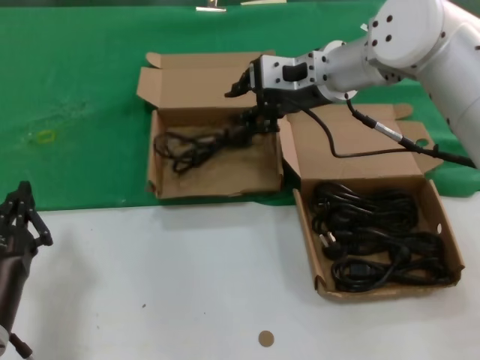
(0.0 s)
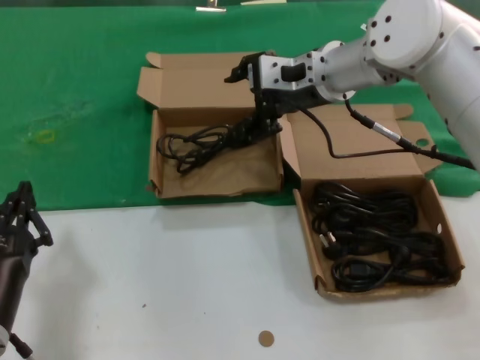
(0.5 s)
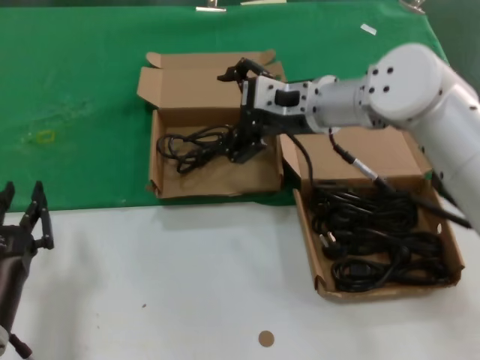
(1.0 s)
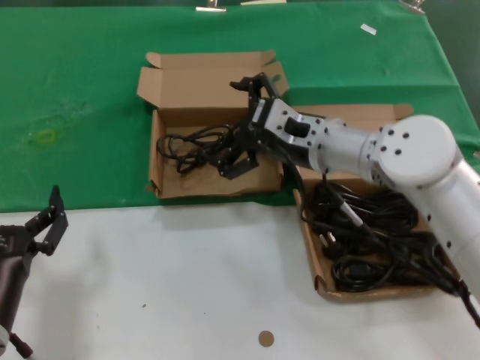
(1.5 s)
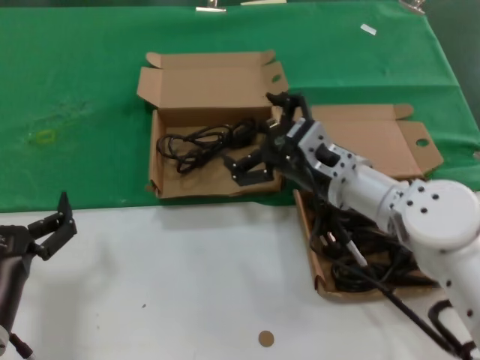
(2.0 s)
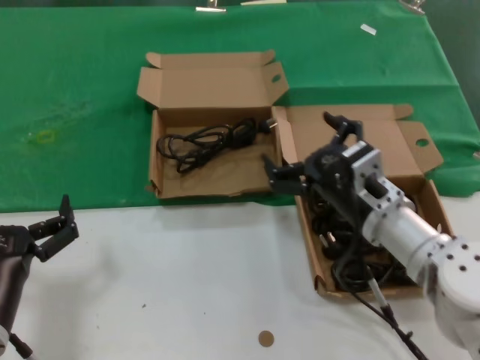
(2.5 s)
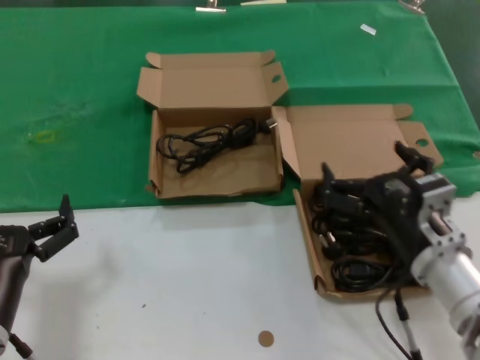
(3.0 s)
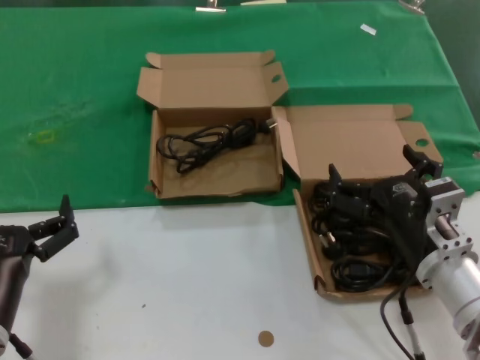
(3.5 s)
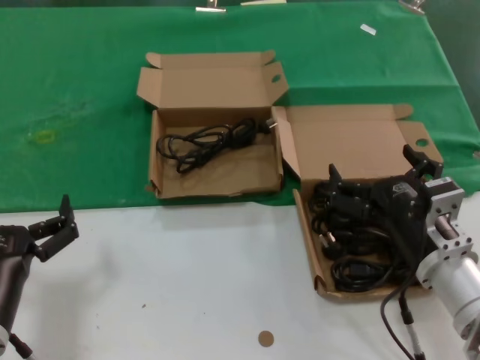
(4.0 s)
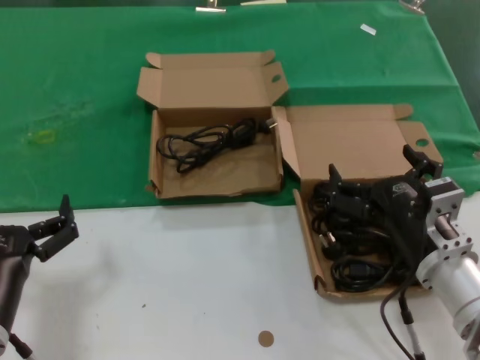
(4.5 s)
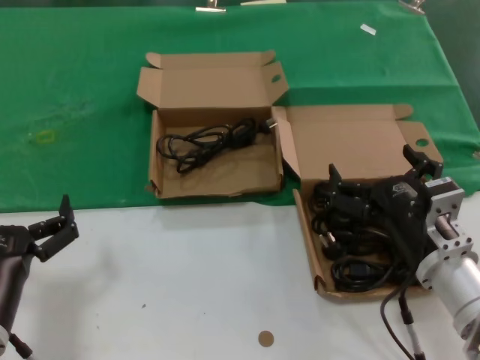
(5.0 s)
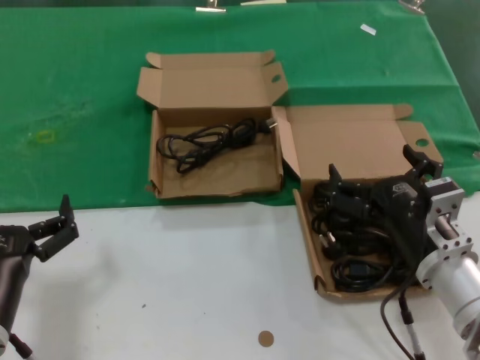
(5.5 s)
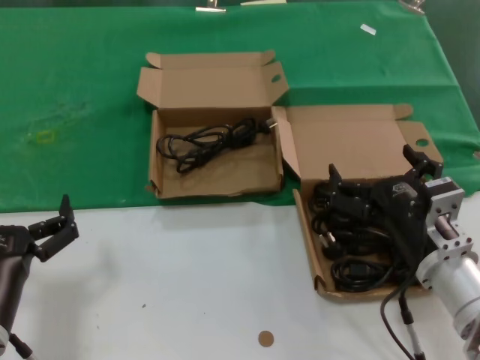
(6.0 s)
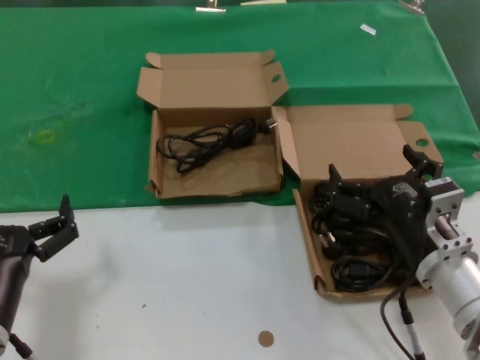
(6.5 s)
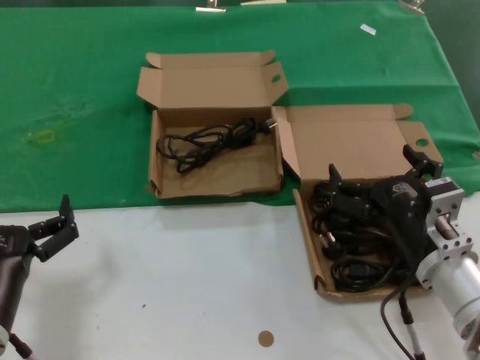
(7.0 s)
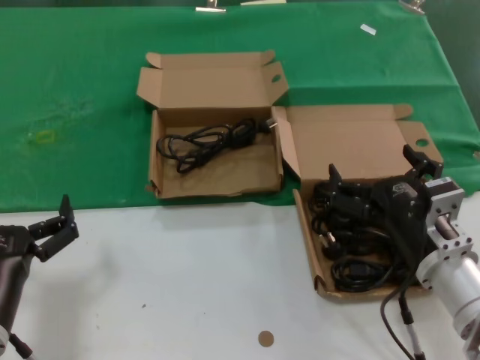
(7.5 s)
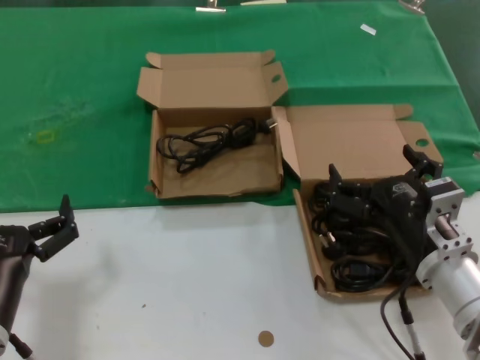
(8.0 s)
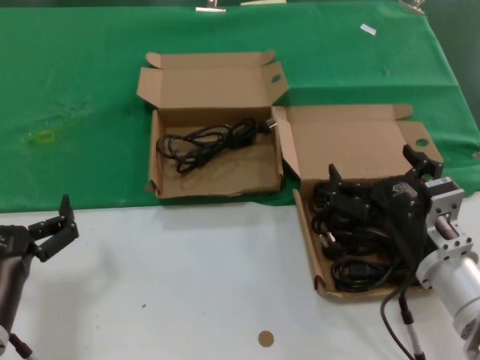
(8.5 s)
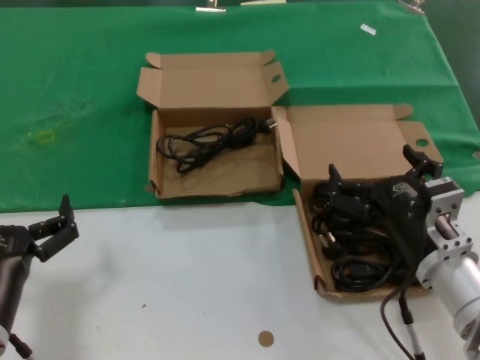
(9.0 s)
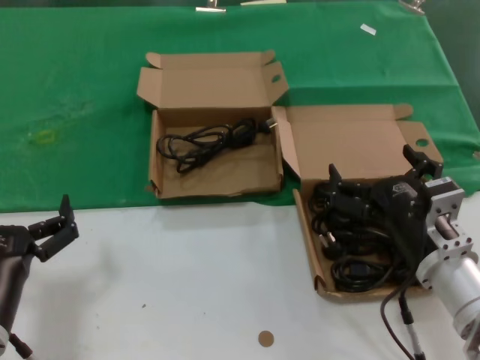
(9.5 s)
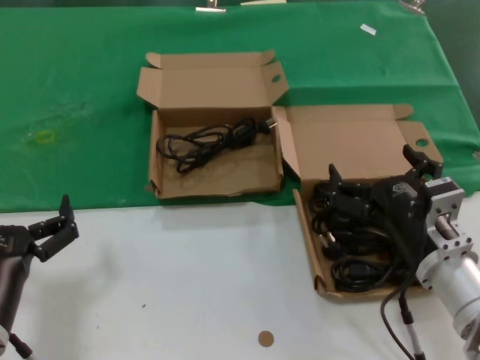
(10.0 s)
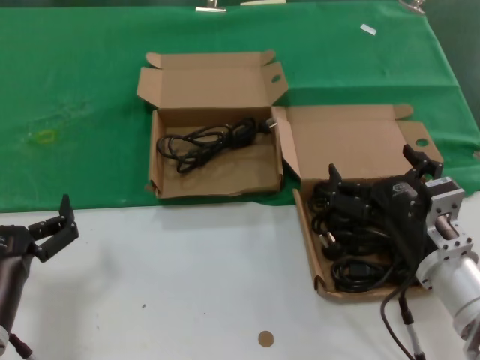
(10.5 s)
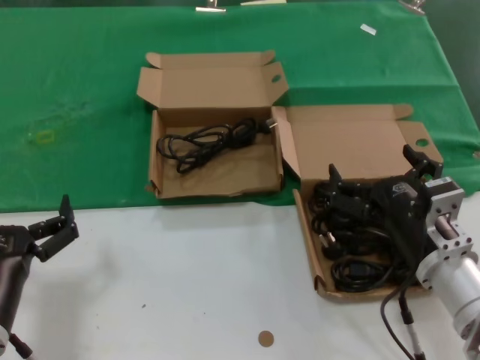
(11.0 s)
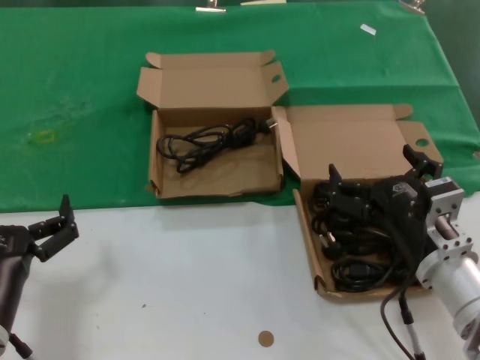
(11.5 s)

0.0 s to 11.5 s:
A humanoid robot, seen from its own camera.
Task of the whole recording: take the parts from the box containing them and put them into an empty box.
0.0 to 2.0 s: The right hand goes approximately 20 cm downward and backward.
2.0 to 4.0 s: The right hand goes some 15 cm backward, to the right and downward.
4.0 to 11.5 s: Both hands stay about where they are.
